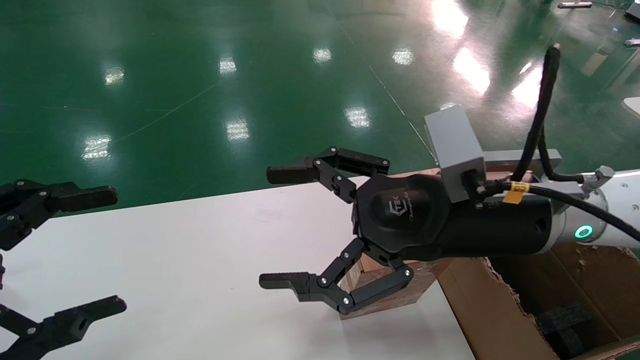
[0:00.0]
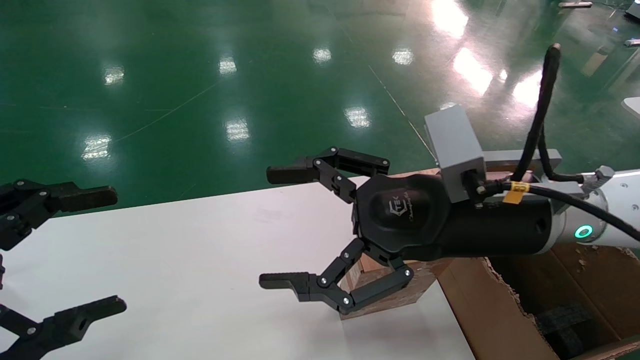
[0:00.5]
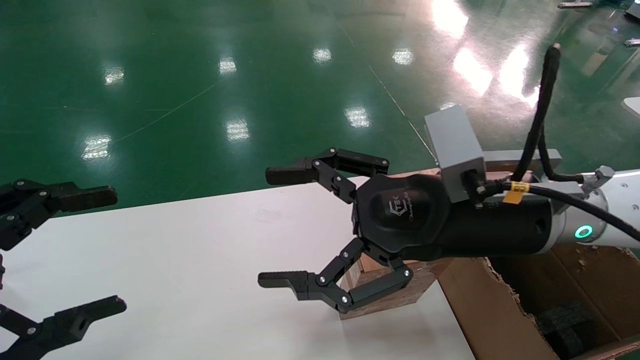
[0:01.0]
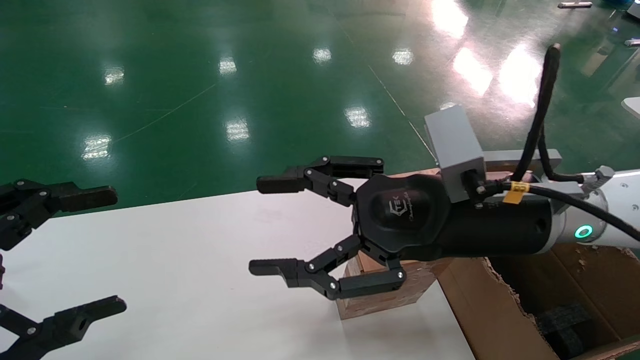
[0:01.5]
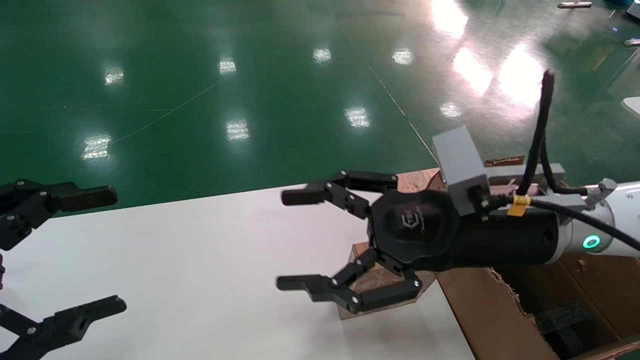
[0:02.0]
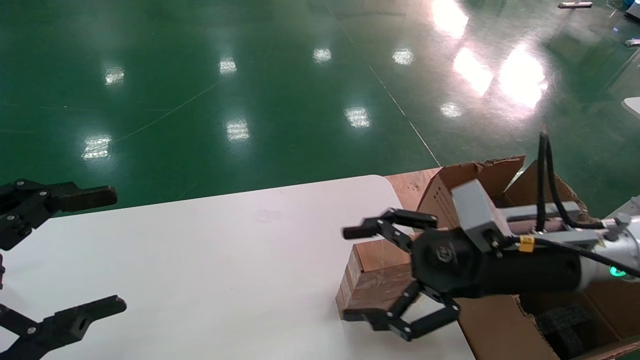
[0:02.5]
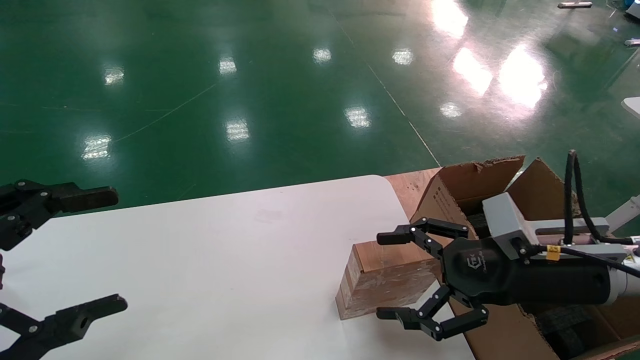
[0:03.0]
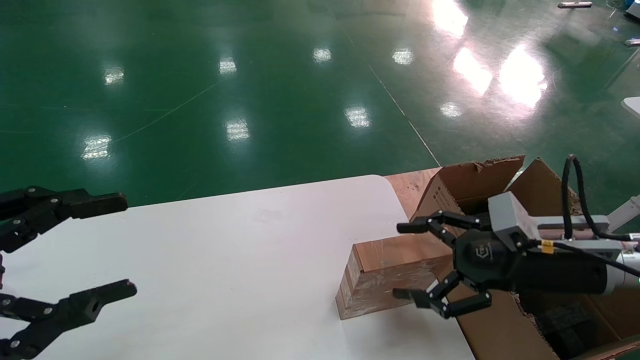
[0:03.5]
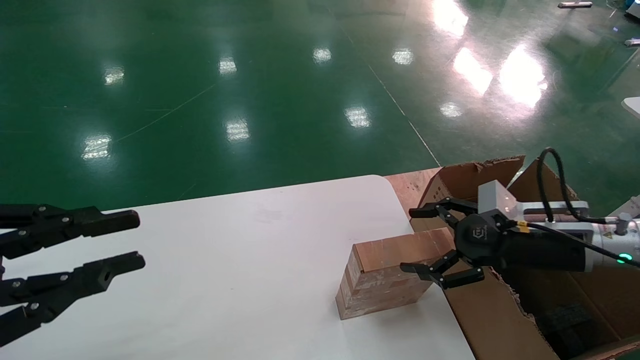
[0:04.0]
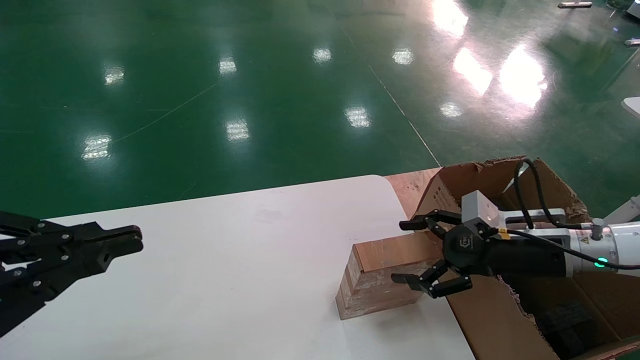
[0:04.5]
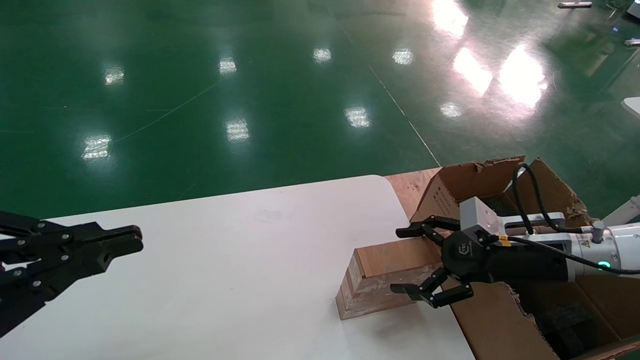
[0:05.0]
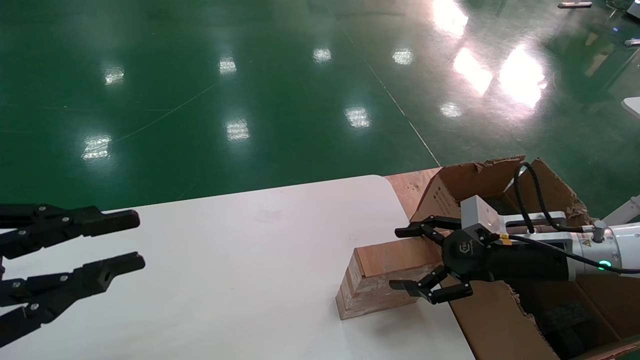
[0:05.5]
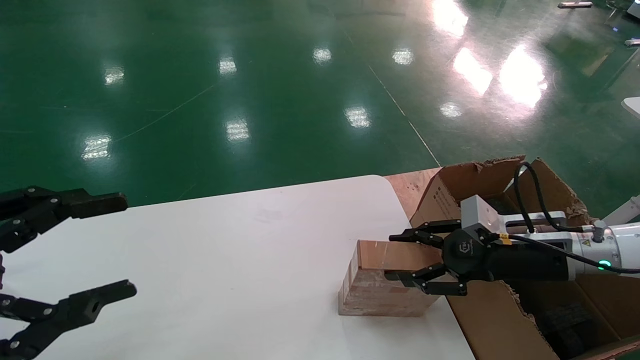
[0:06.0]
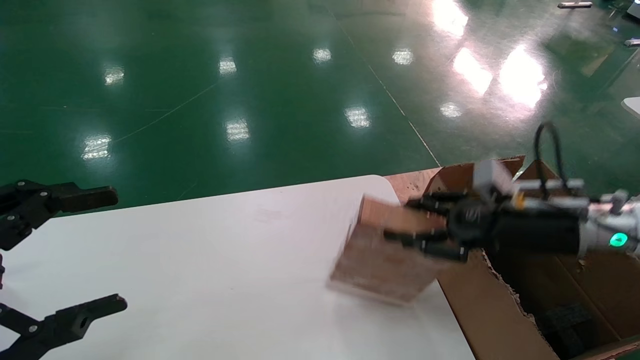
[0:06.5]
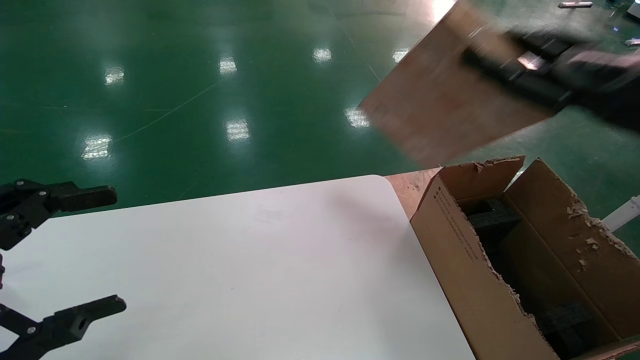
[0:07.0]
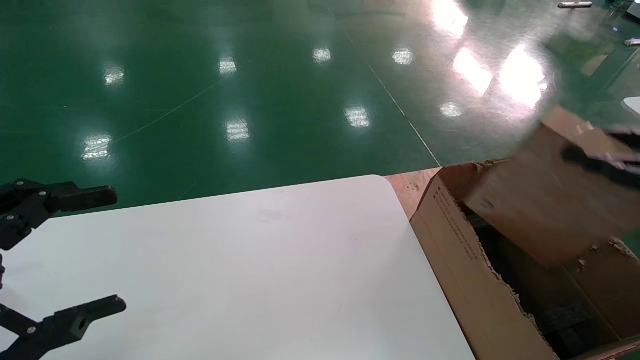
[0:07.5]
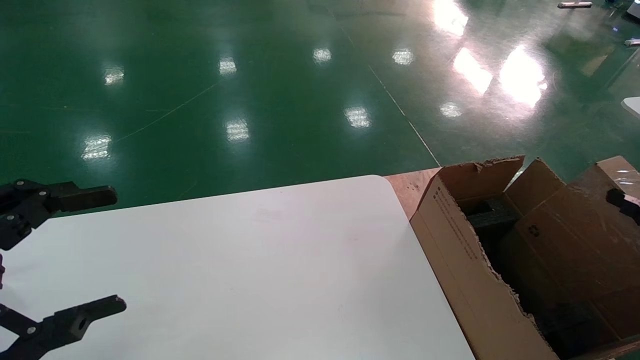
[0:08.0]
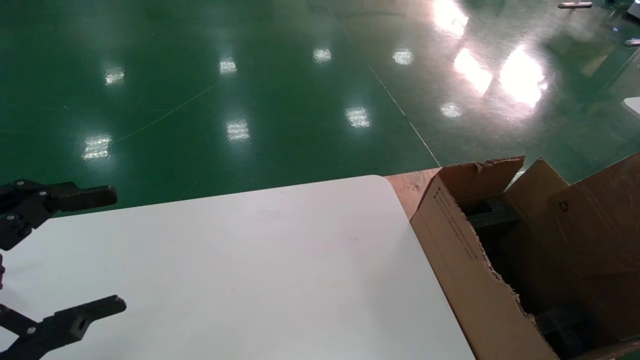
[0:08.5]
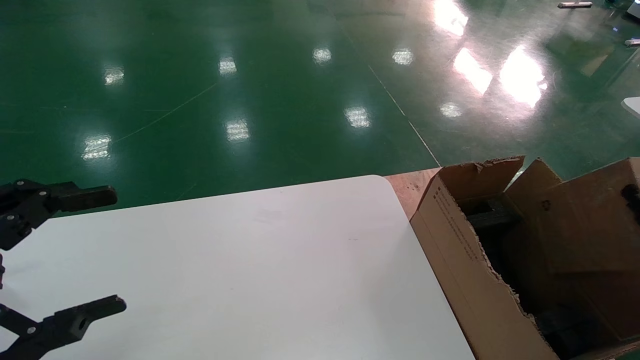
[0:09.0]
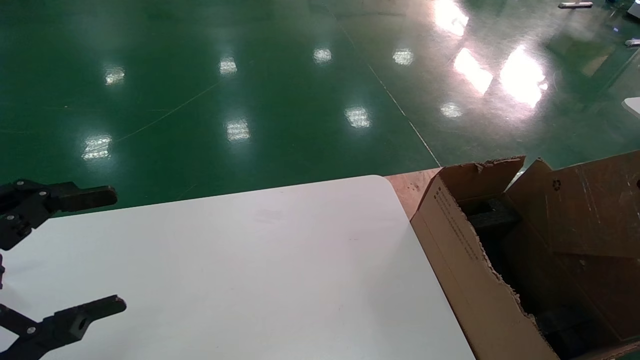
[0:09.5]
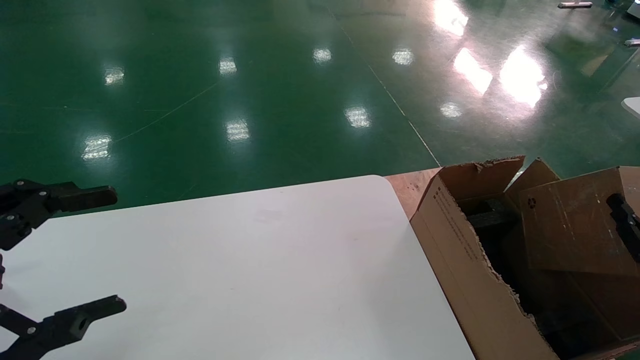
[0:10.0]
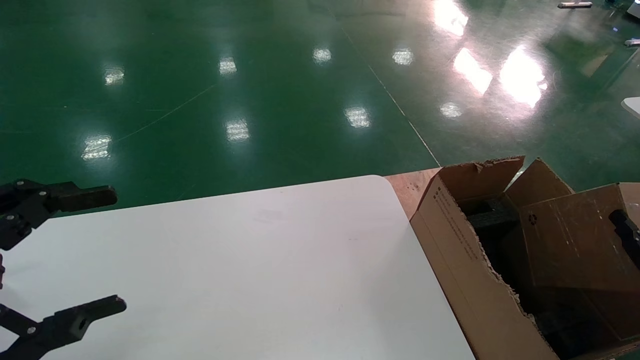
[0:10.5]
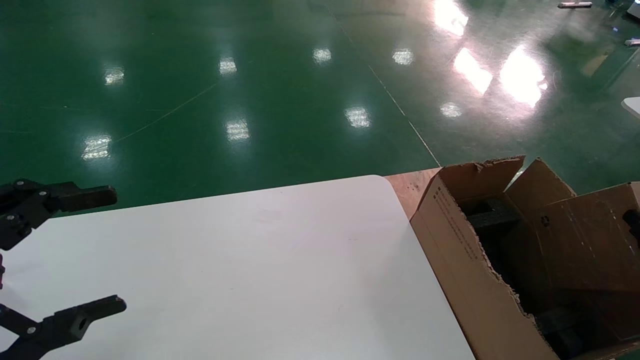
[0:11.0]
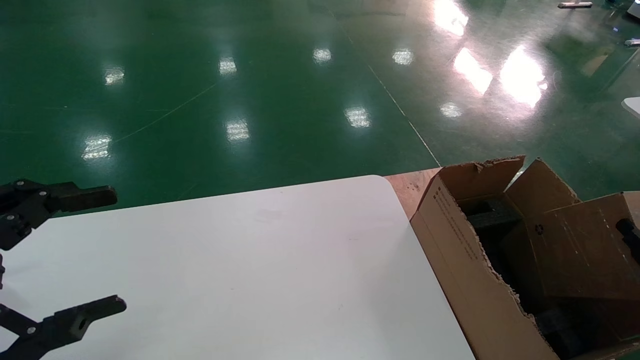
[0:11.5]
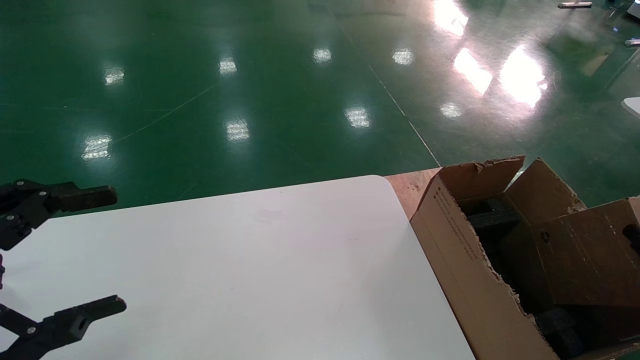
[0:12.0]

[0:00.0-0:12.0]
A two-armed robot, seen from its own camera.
Task of the whole recording: put the box on the table into the big box.
Step, 0:02.5 to 0:06.0: Pick up the mouse and the power cord paper box.
0:00.0 to 0:02.0: The right gripper closes up.
0:02.0 to 0:04.0: The left gripper closes its fingers. Meanwhile the right gripper shifts roughly 15 cm to the right and downward, and opens.
0:04.0 to 0:06.0: The left gripper closes, then opens again. The right gripper closes.
0:06.0 to 0:08.0: The left gripper opens its fingers. Meanwhile the right gripper moves backward and to the right, some 25 cm, and closes.
0:08.0 to 0:10.0: The right gripper heads downward, covering about 15 cm.

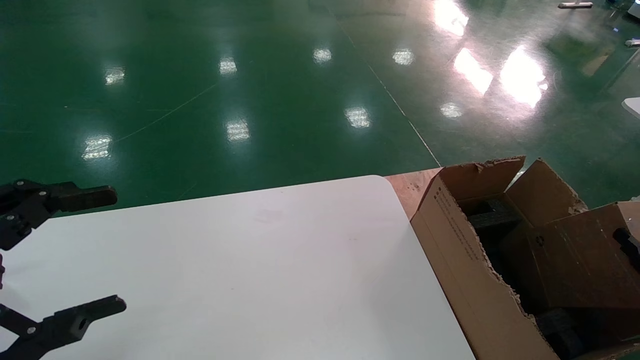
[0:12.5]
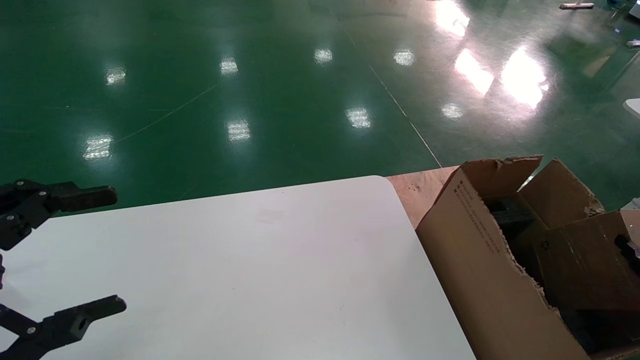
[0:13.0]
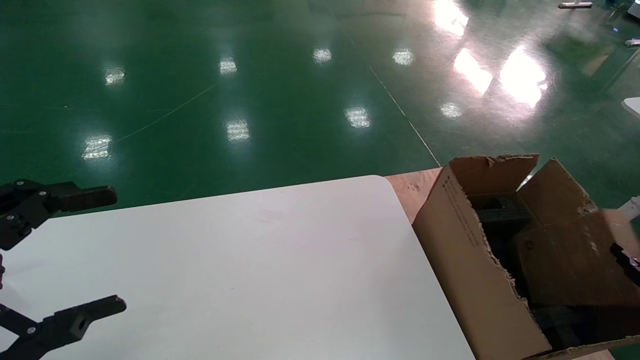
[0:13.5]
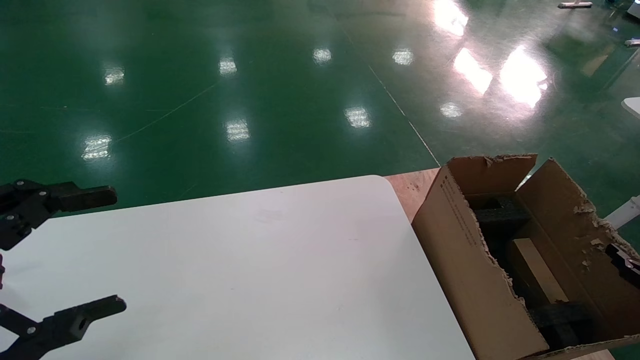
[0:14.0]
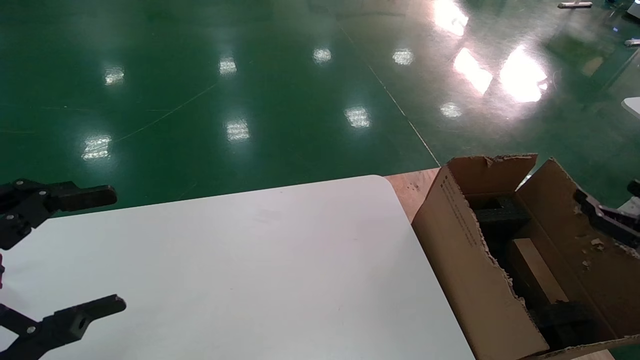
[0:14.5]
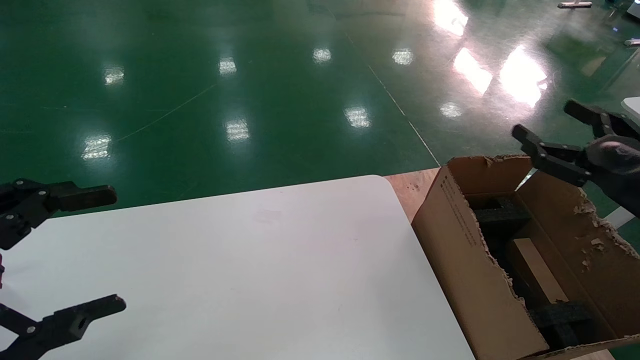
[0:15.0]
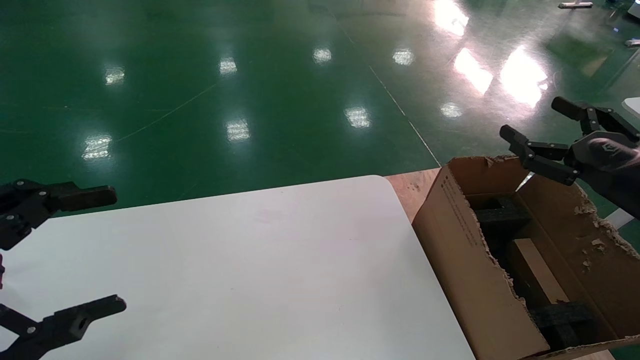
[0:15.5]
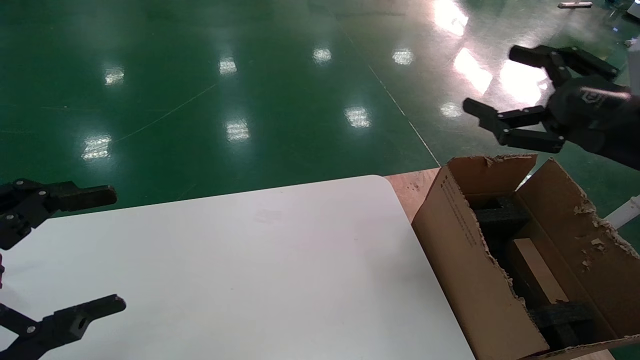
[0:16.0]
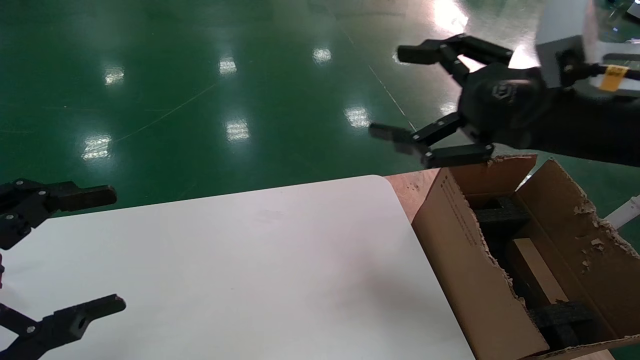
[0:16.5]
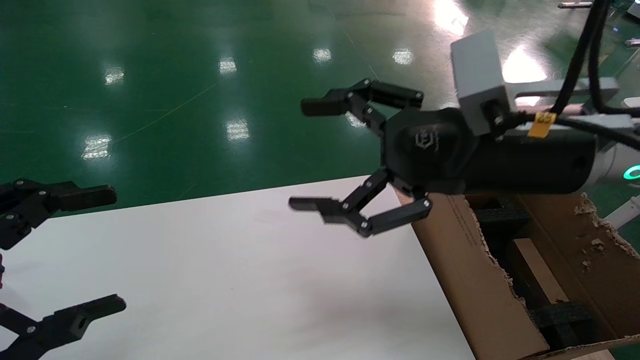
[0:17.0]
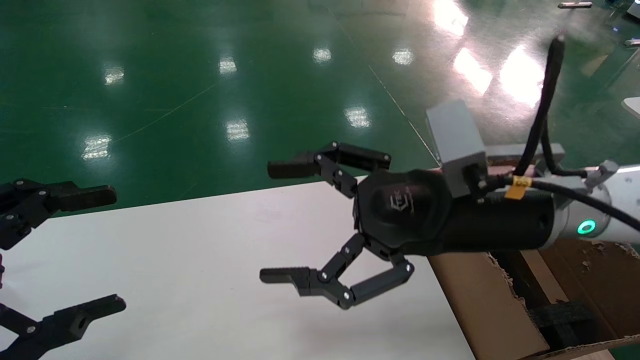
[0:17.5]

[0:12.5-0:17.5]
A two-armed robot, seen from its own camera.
Task of the whole recording: put the box on the table into the big box.
0:12.5 to 0:15.0: The right gripper travels upward, to the left and forward by some 20 cm, and opens its fingers.
0:15.0 to 0:17.5: The right gripper is displaced to the left by roughly 25 cm.
